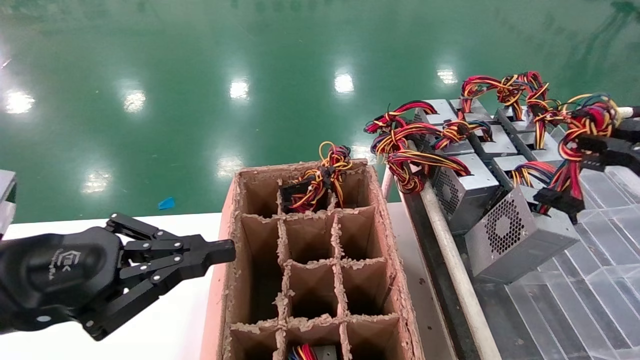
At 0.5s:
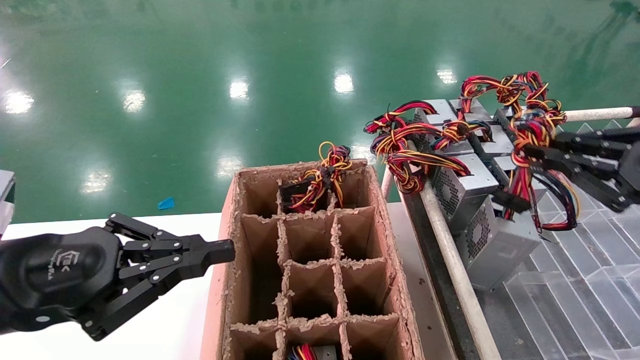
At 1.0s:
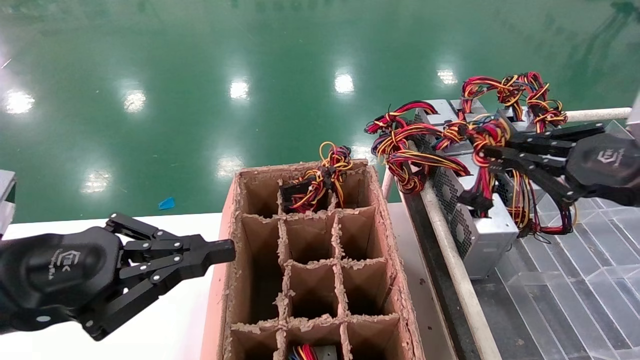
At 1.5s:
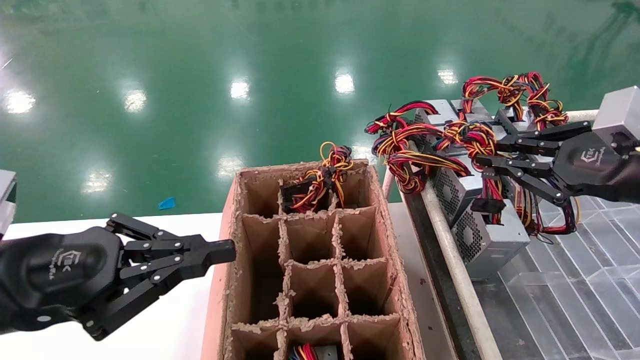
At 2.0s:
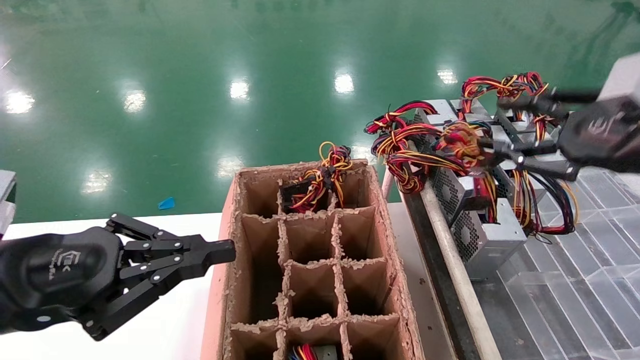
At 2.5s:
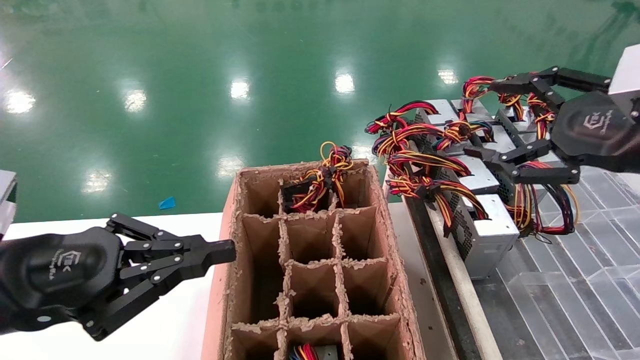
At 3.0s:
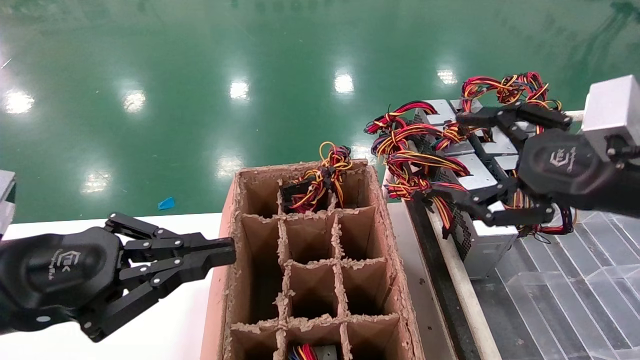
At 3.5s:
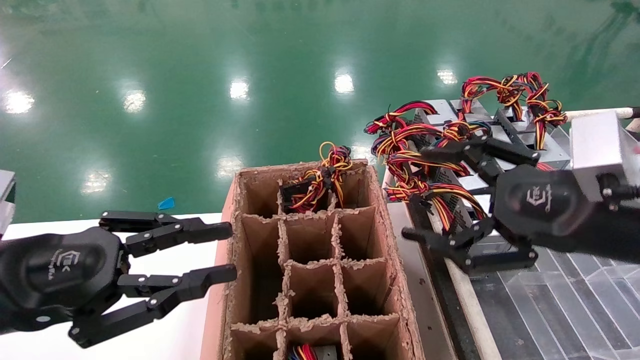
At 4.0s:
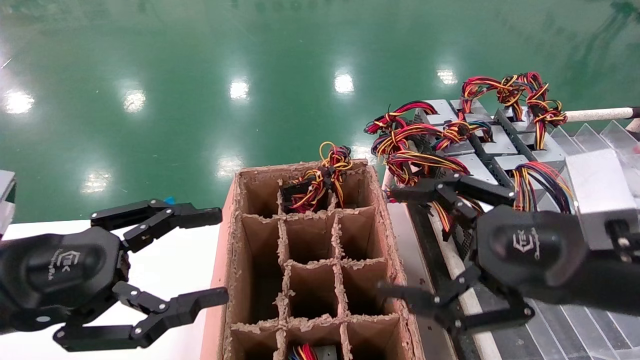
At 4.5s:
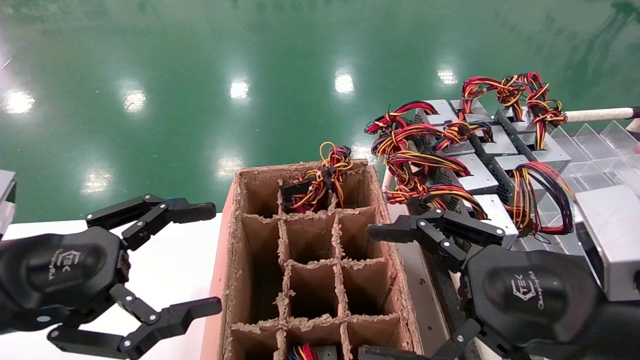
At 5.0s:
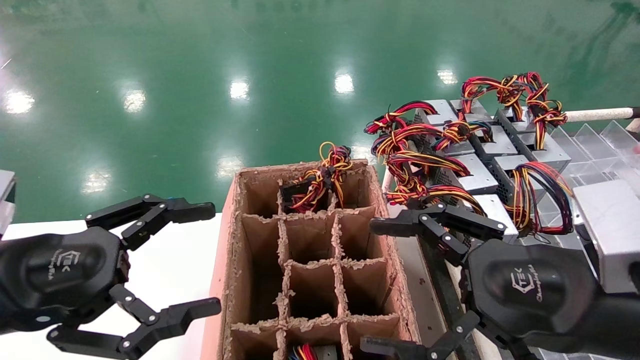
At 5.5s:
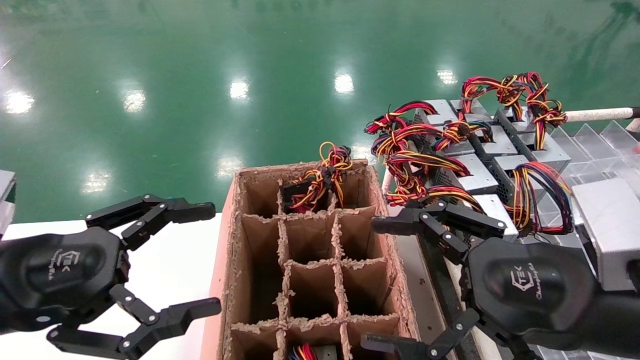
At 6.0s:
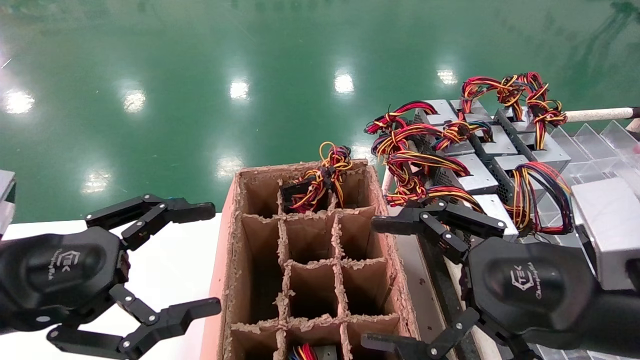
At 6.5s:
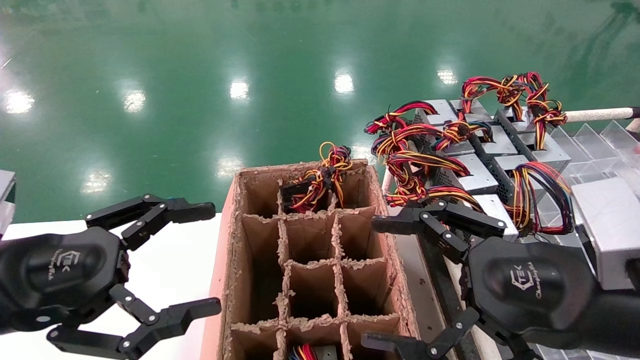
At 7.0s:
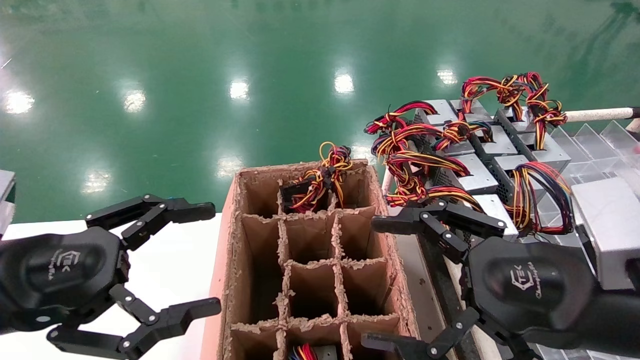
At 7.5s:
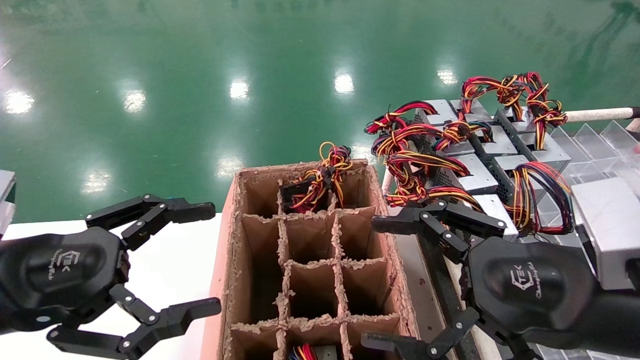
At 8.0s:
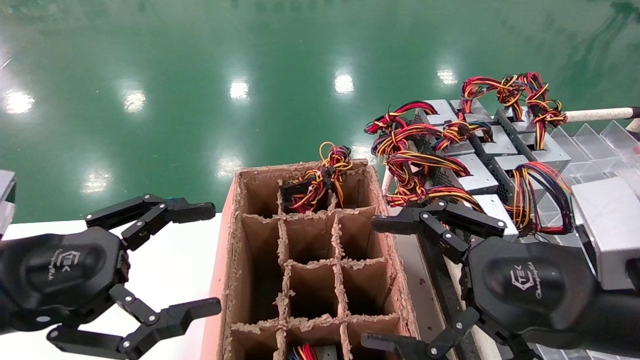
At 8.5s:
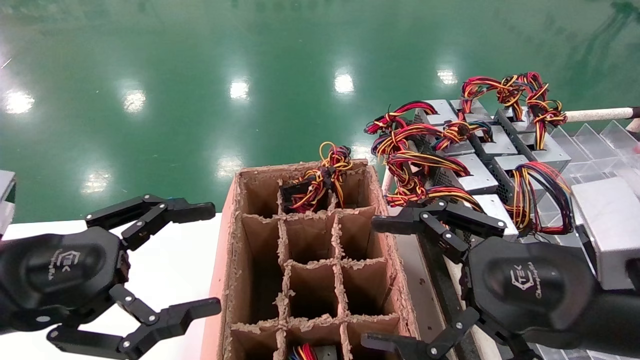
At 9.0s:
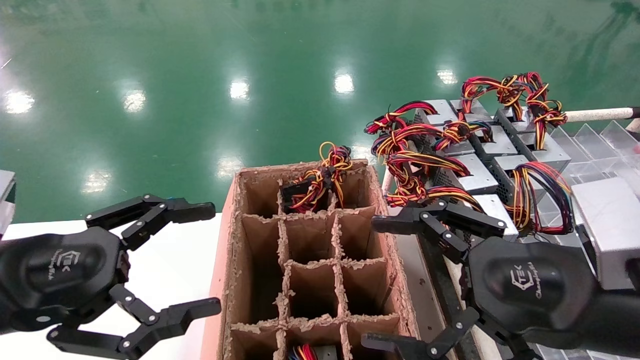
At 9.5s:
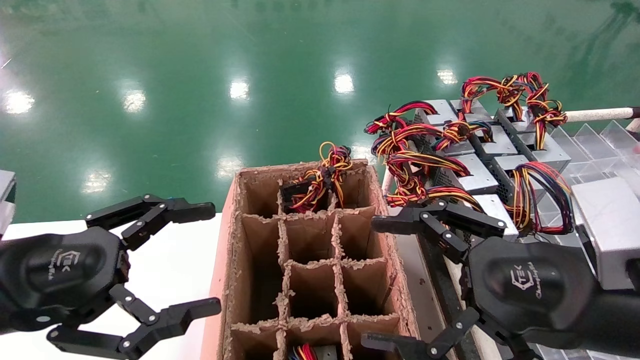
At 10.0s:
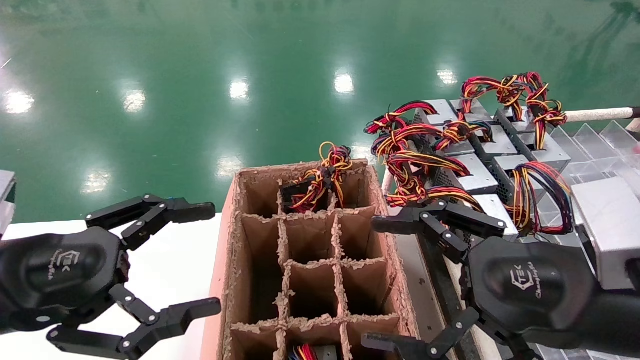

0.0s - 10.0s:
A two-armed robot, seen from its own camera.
Step, 0.0s - 2.0s: Place the main unit power supply in the designated area.
0.0s - 2.0s: The right gripper heads forward and to the left, covering about 10 cm.
2.0s - 4.0s: The left gripper opens up. The right gripper moves to the left, downward and backward, about 15 cm, and opens.
4.0s - 6.0s: There are only small adjustments of the grippers.
6.0s - 10.0s: Both grippers stay about where they are.
